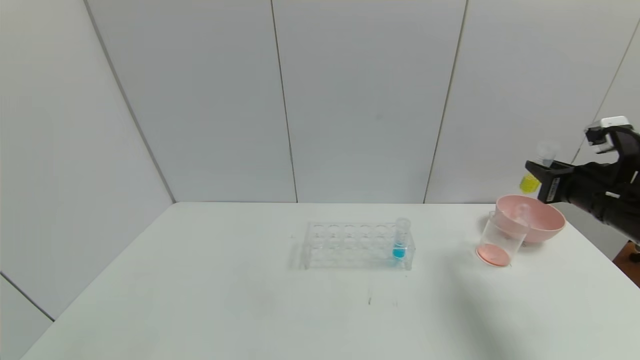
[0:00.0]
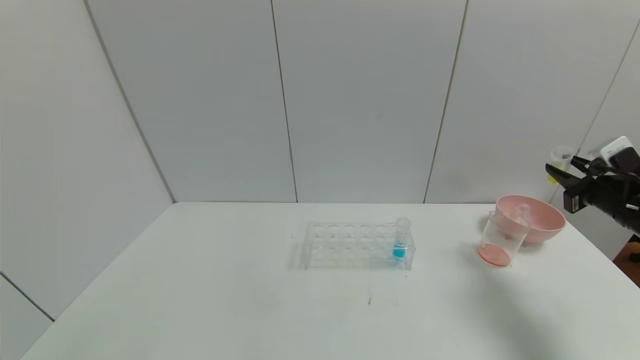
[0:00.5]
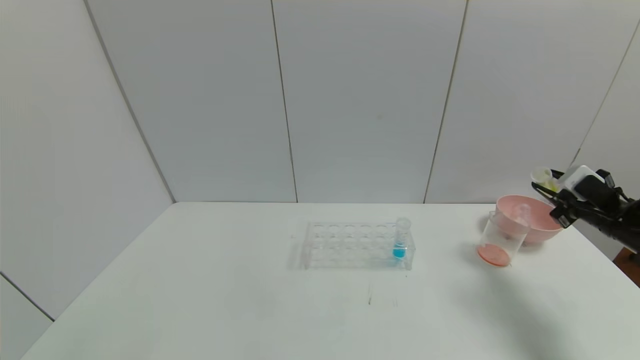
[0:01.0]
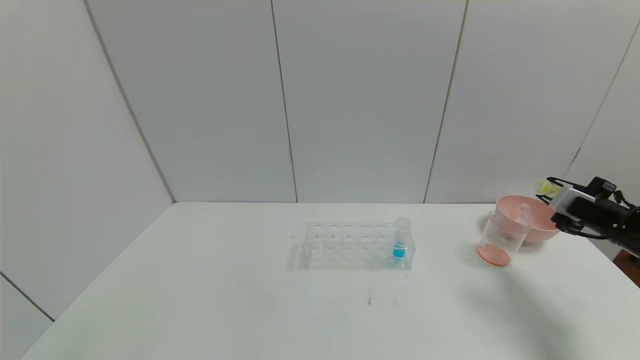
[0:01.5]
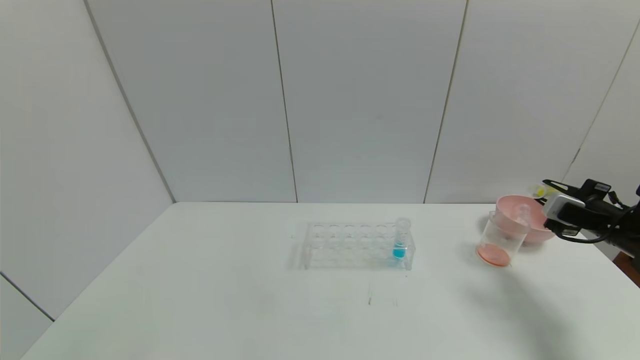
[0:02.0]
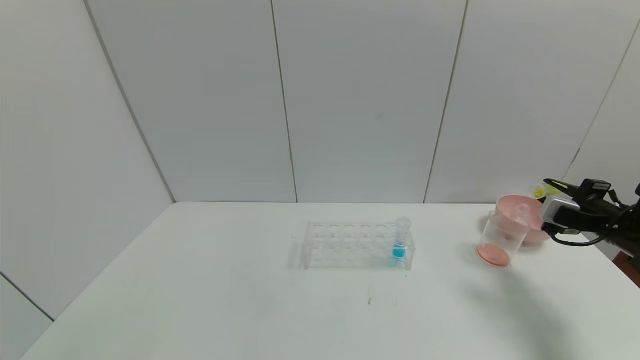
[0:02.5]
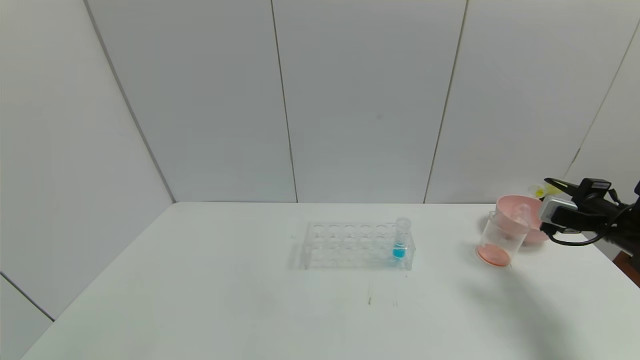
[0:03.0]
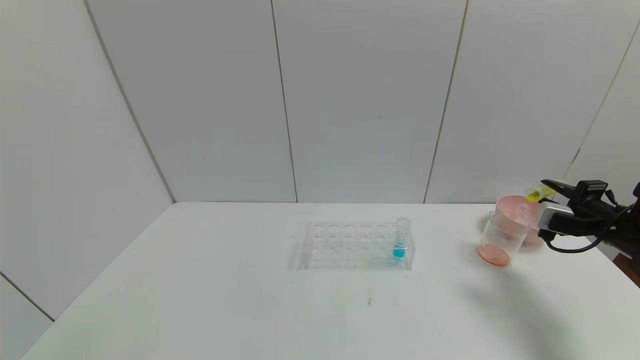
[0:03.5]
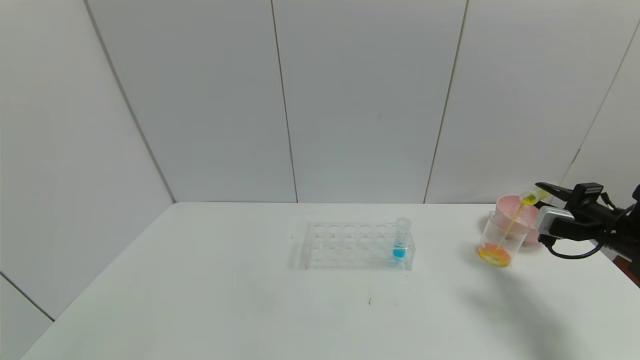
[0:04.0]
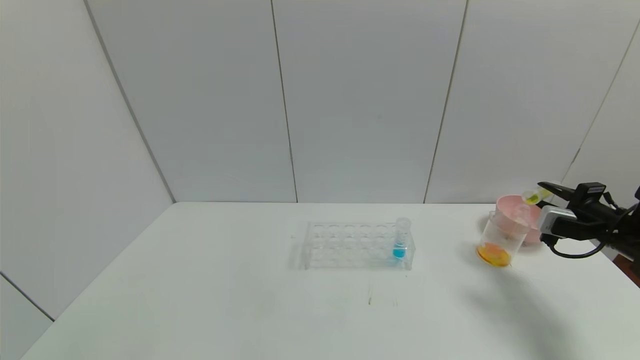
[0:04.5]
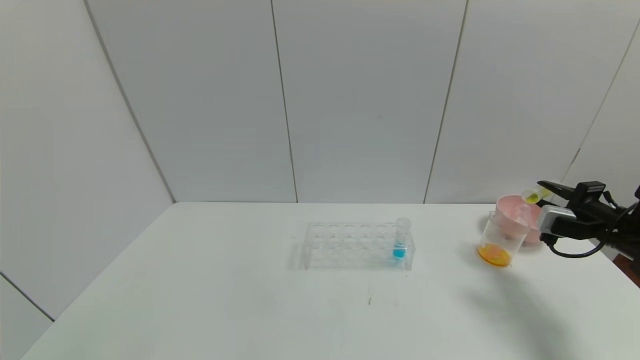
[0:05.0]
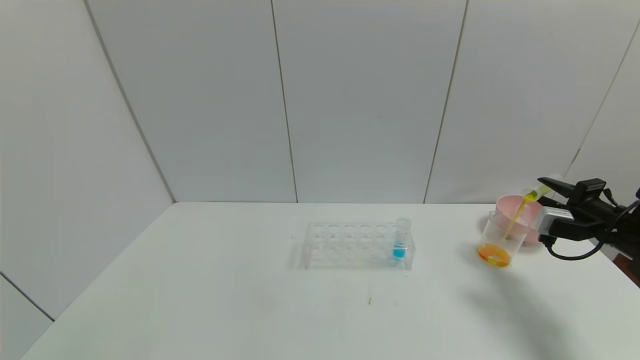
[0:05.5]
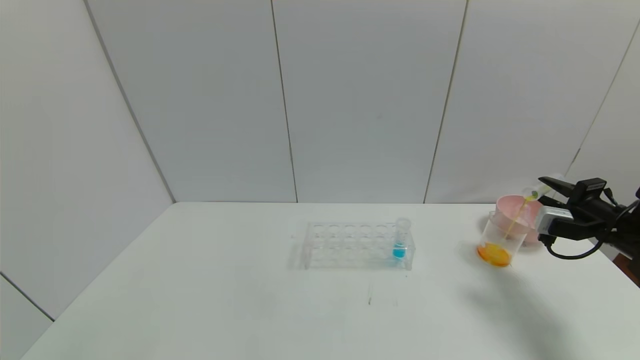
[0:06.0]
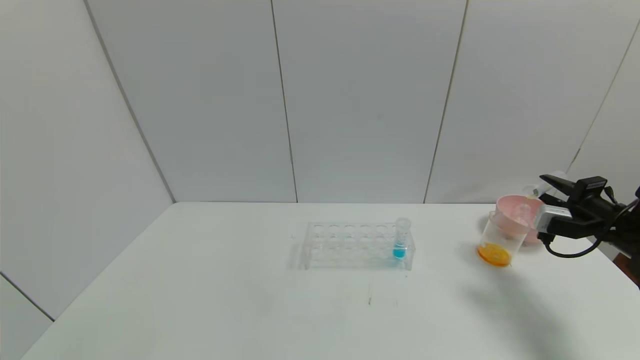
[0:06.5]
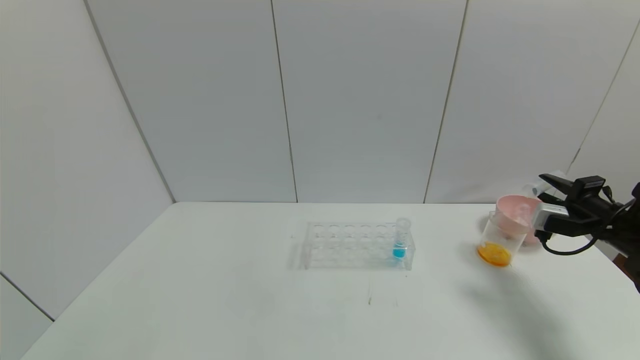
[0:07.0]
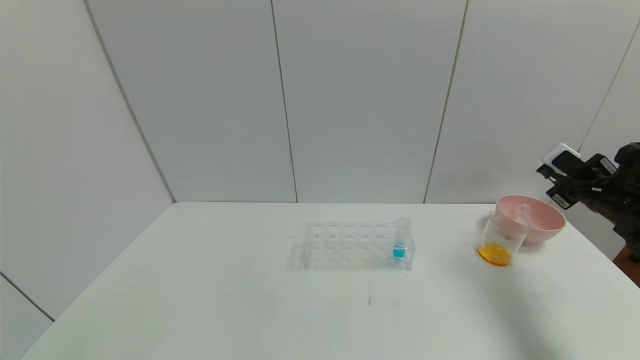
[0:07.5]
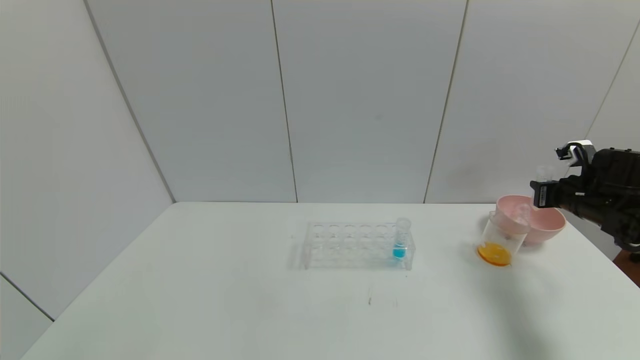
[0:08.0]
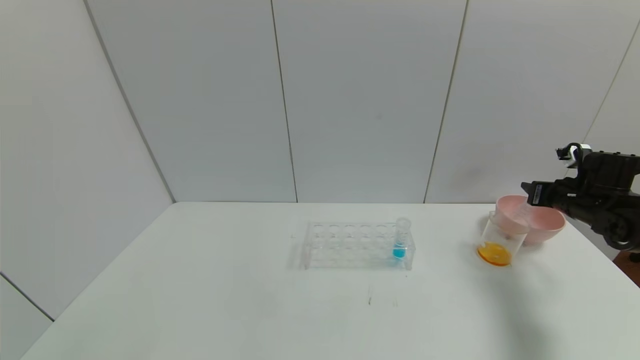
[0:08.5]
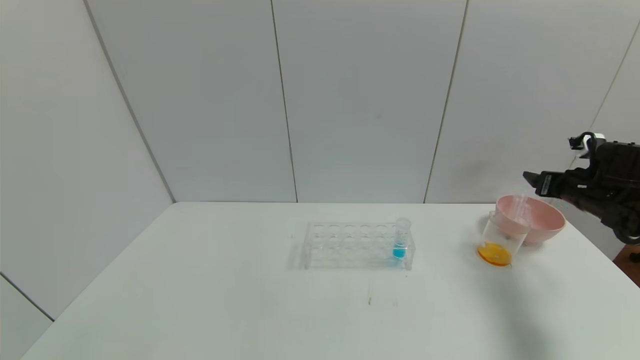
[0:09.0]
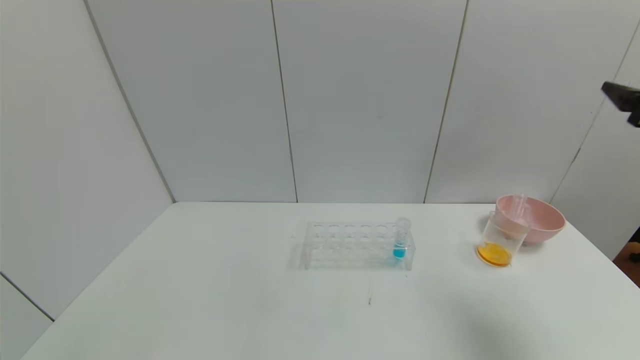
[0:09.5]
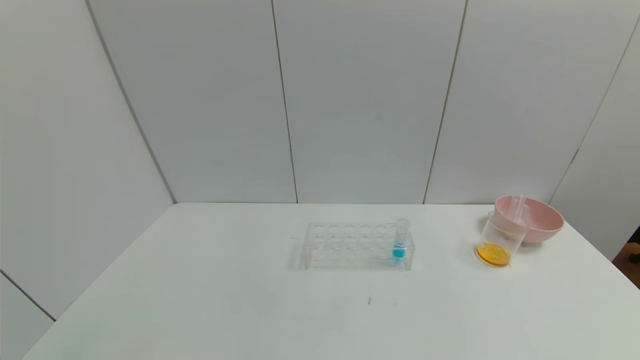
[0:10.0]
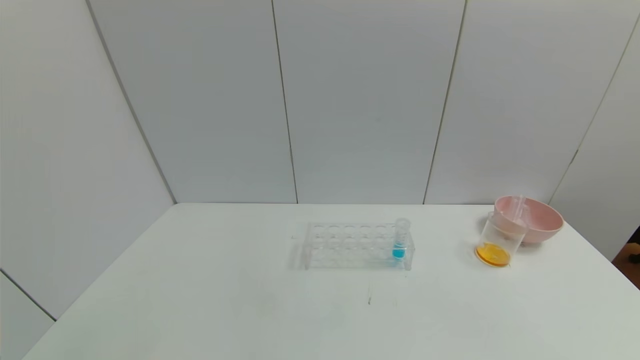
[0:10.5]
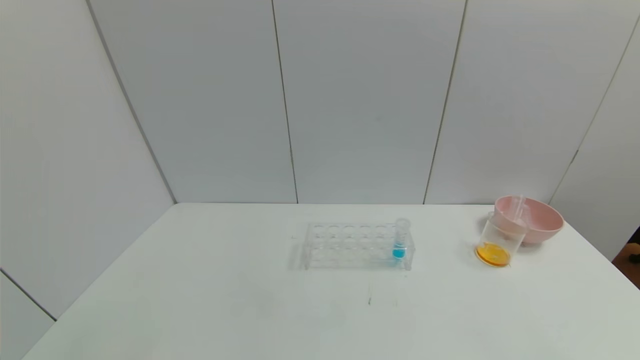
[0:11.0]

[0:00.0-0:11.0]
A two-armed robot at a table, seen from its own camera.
Task of the whole recording: pick up the test tube with yellow pigment and the test tube with red pigment by grippers and pour them into the beaker.
Step, 0:00.0 to 0:07.0: Pour the yellow reagent into the graduated cylinder with the right gripper.
Step, 0:07.5 to 0:08.5: Place the test tube into the bowl with the right gripper.
0:00.0 to 0:02.0: The right gripper heads to the right and downward, covering roughly 10 cm.
0:02.0 to 0:05.5: There are only small adjustments of the grippers.
0:05.5 to 0:07.5: The right gripper shifts by about 5 cm.
0:07.5 to 0:09.0: The right gripper opens its fingers.
0:09.0 to 0:11.0: The right gripper heads backward, covering approximately 40 cm.

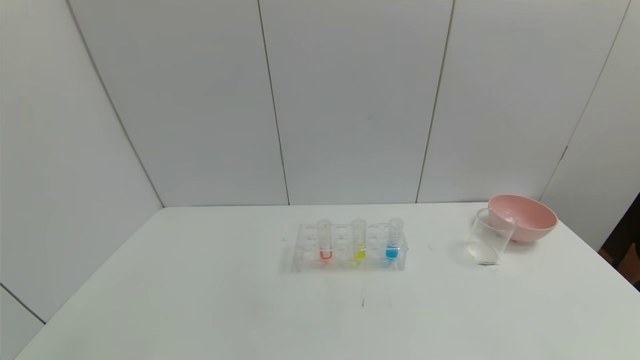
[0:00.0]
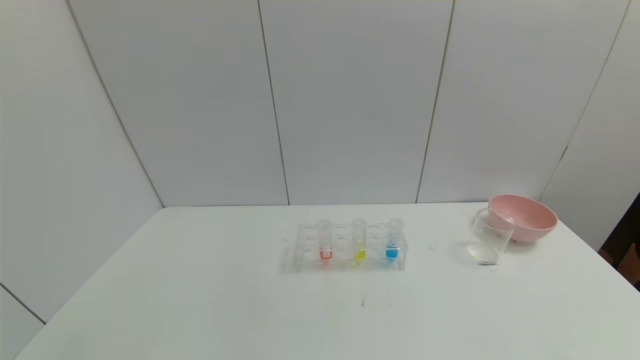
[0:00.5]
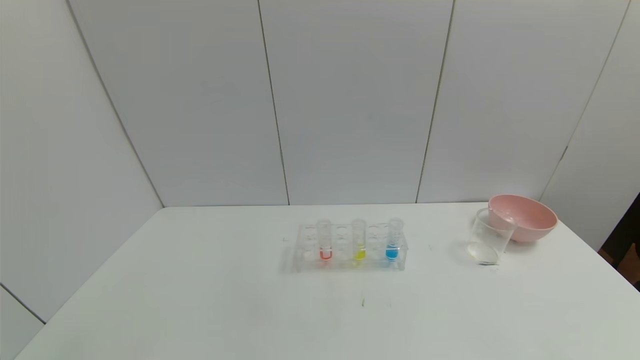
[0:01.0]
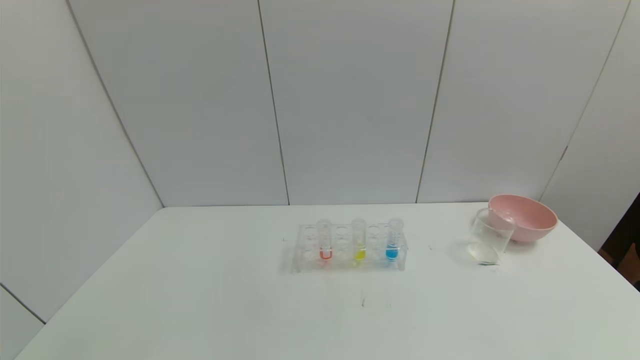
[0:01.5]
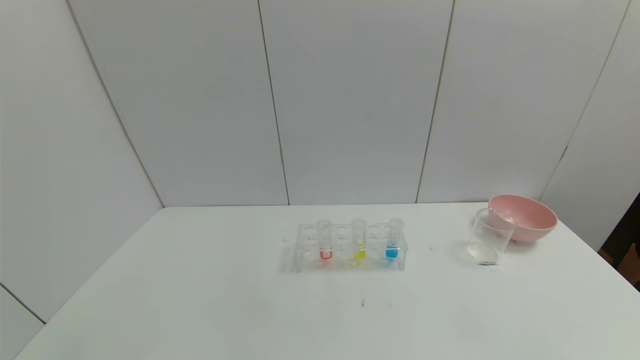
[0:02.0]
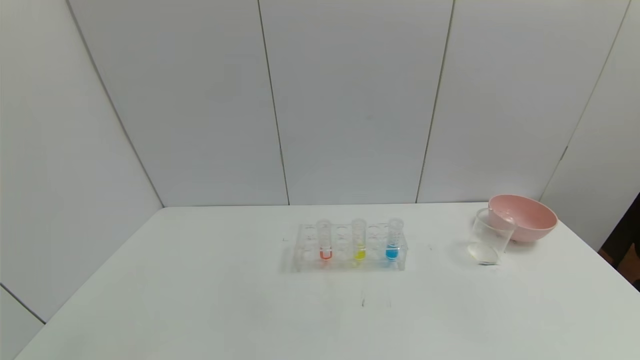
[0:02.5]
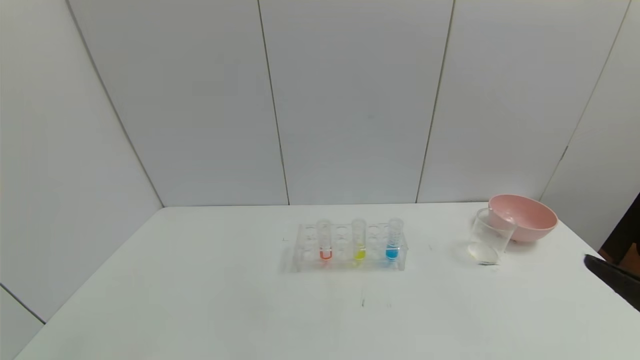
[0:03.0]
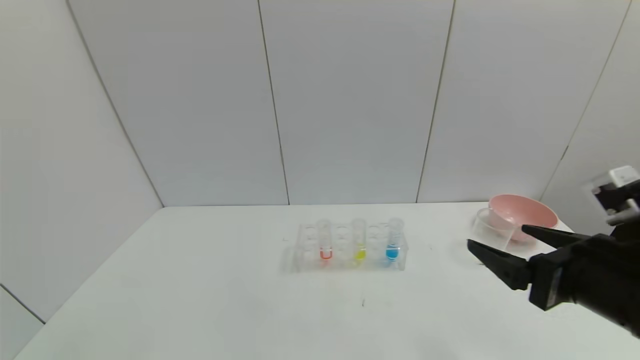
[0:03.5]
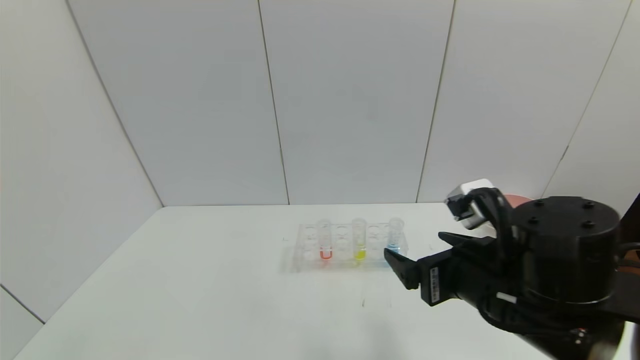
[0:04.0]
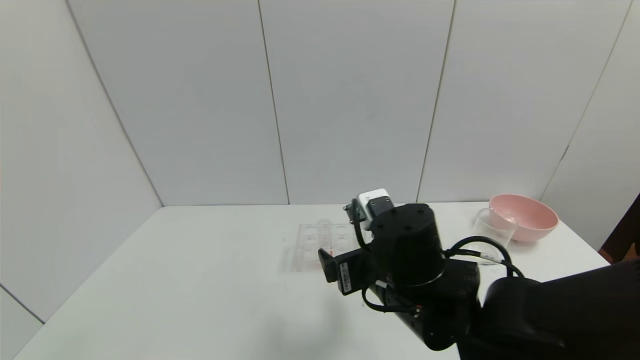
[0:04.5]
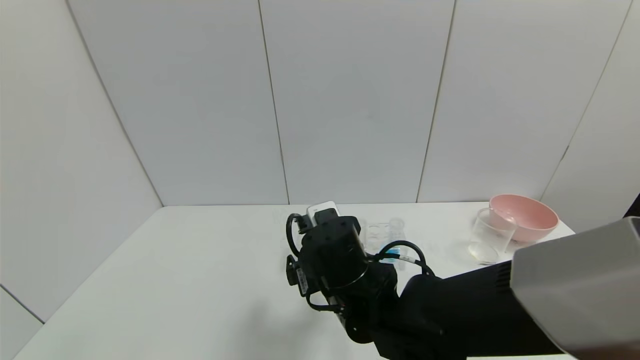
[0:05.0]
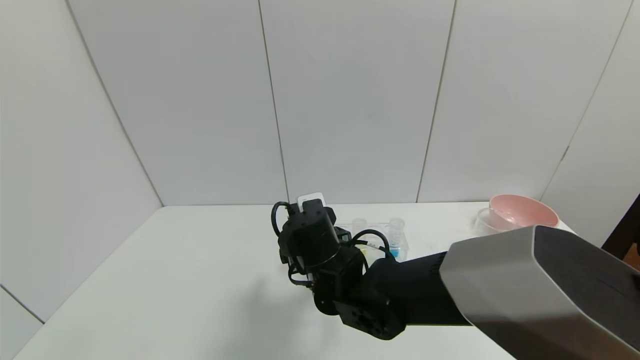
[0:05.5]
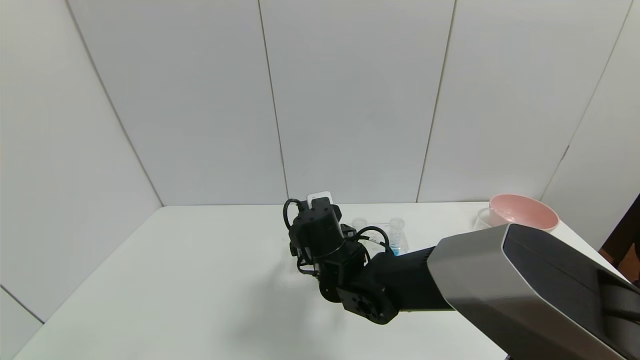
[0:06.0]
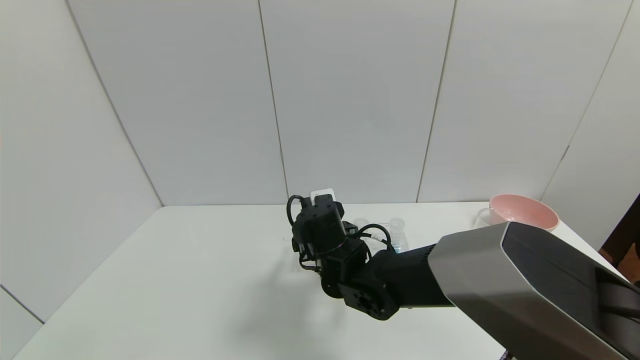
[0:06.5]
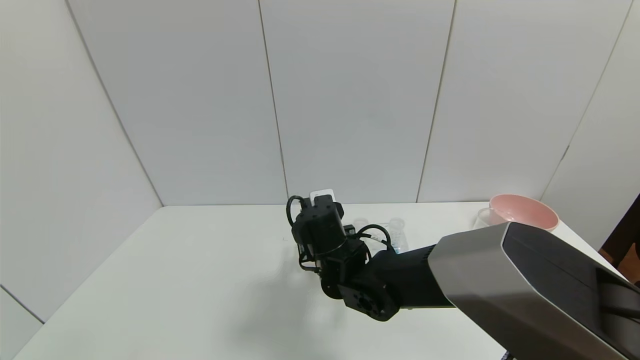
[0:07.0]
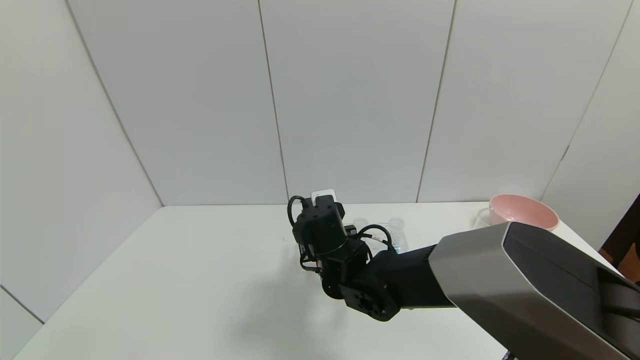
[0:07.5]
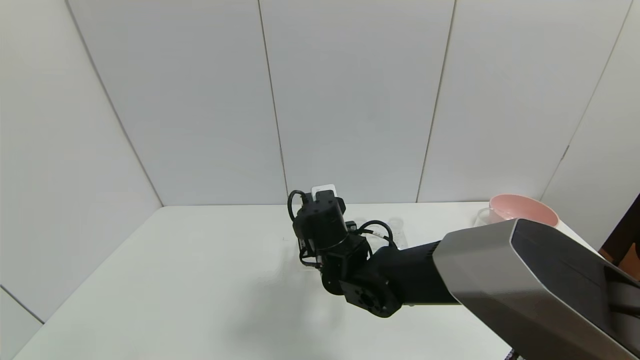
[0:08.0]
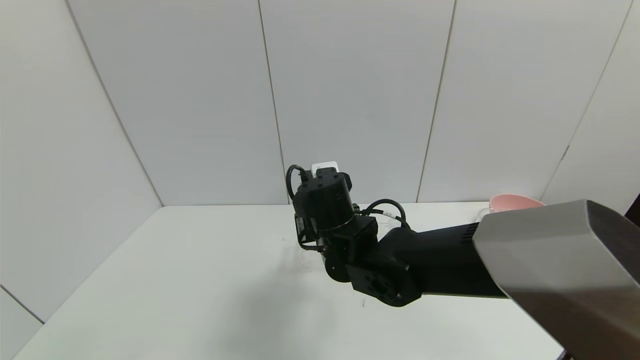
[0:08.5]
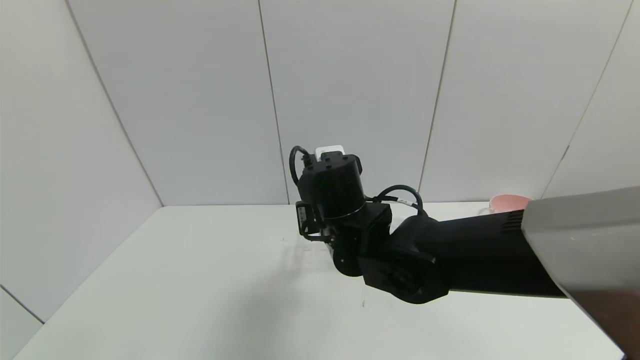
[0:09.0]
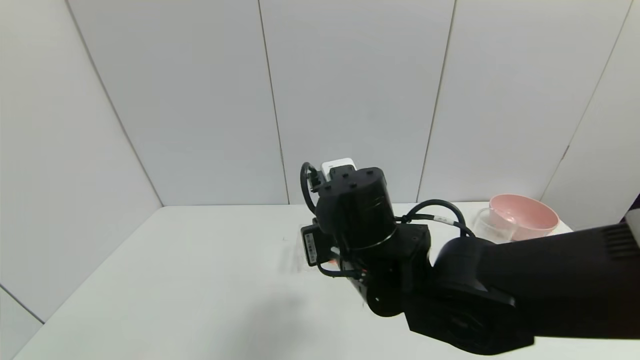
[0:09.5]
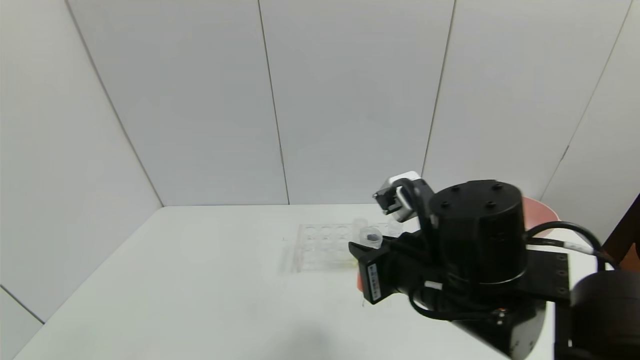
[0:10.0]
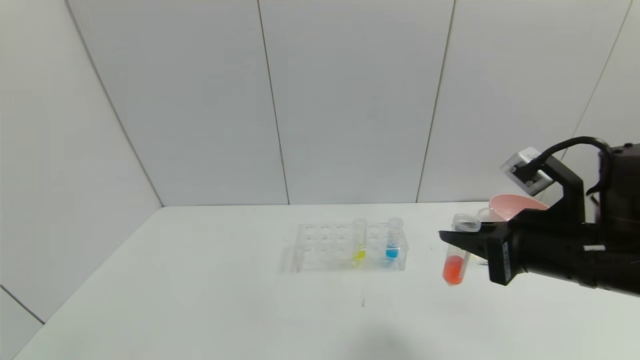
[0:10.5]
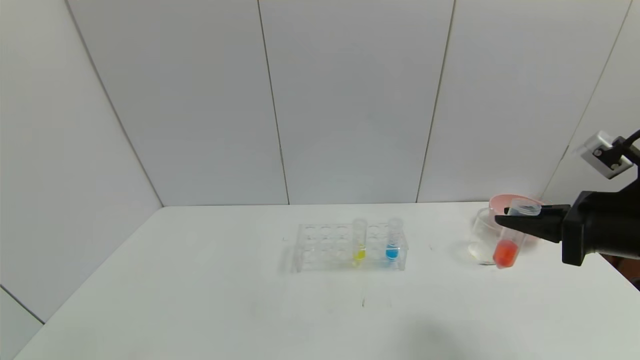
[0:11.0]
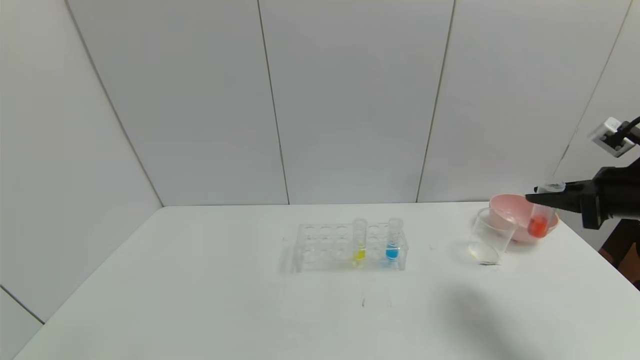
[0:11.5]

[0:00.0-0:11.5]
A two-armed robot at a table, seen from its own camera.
Task of the whole recording: pick up the test tube with yellow pigment and the test tube with red pigment by grippers and pour them into the beaker.
Step, 0:00.0 to 0:07.0: Grasp the red reagent with the right gripper.
0:02.0 to 0:04.0: The right gripper travels forward and to the left by roughly 30 cm.
0:04.0 to 0:06.0: The right gripper shifts approximately 25 cm to the left, forward and downward.
0:06.0 to 0:07.5: The right gripper closes its fingers.
0:07.5 to 0:09.5: The right gripper is displaced upward and backward by about 10 cm.
0:09.5 to 0:11.5: The right gripper heads to the right, covering some 35 cm.
